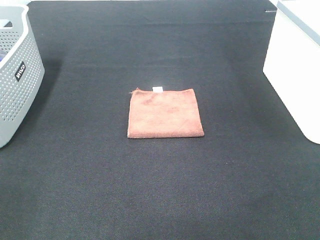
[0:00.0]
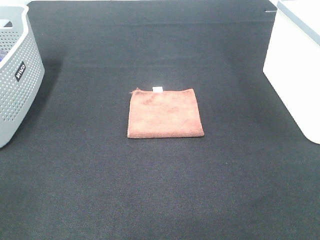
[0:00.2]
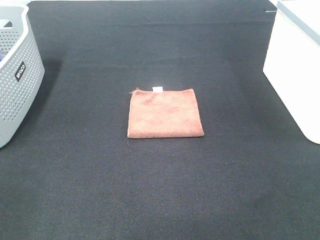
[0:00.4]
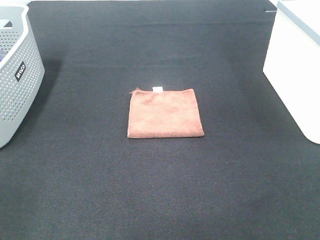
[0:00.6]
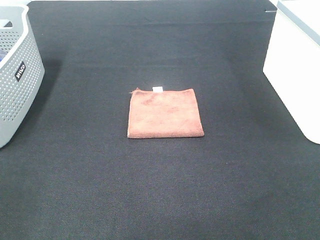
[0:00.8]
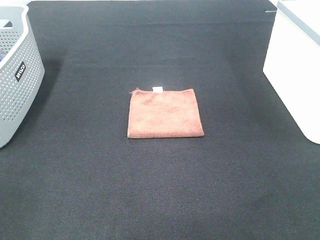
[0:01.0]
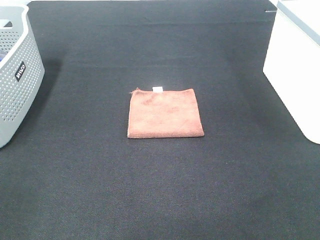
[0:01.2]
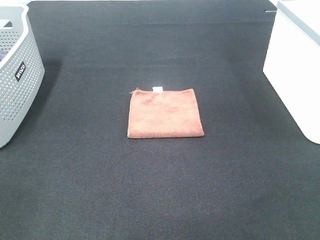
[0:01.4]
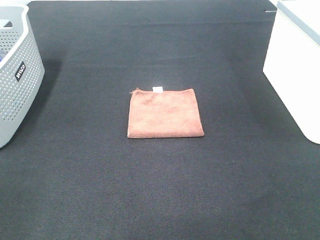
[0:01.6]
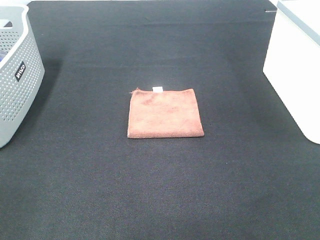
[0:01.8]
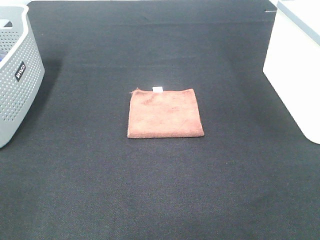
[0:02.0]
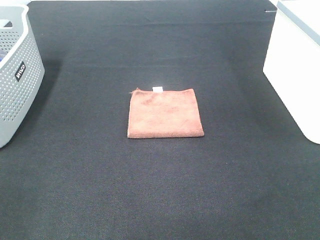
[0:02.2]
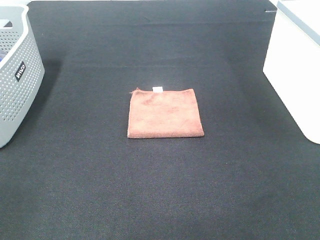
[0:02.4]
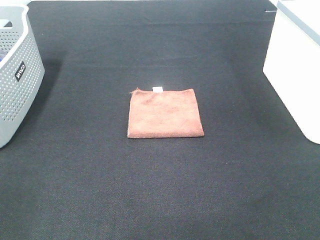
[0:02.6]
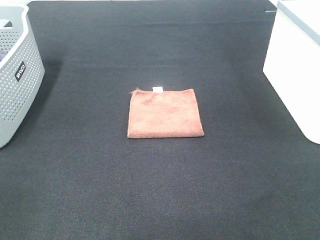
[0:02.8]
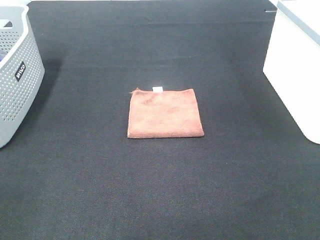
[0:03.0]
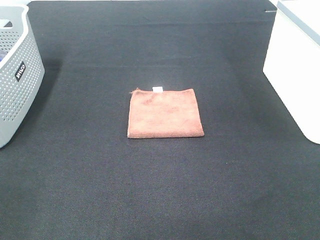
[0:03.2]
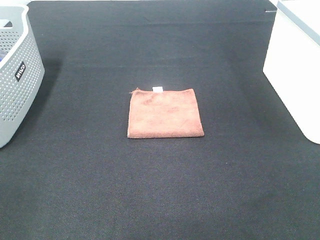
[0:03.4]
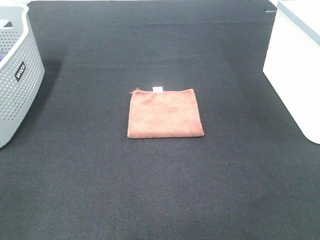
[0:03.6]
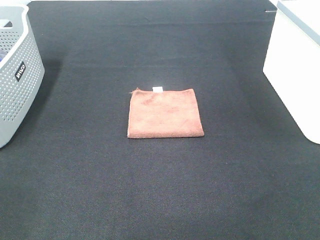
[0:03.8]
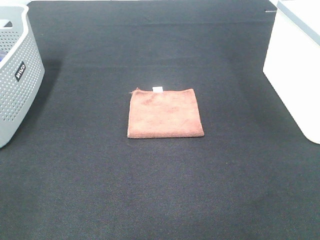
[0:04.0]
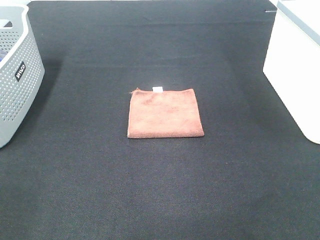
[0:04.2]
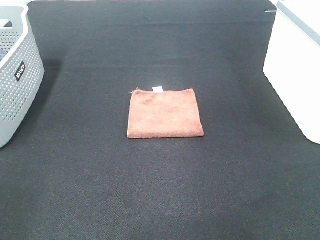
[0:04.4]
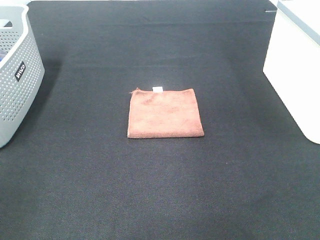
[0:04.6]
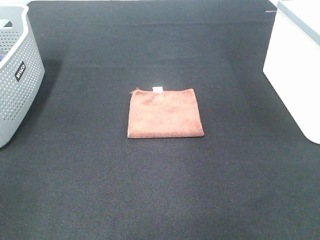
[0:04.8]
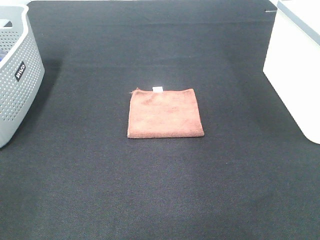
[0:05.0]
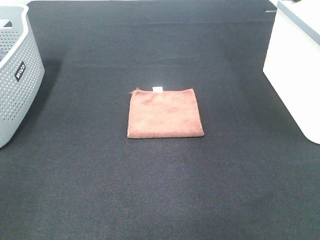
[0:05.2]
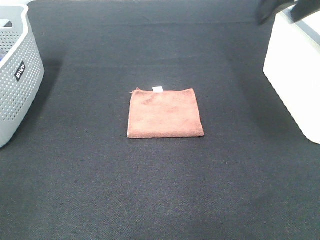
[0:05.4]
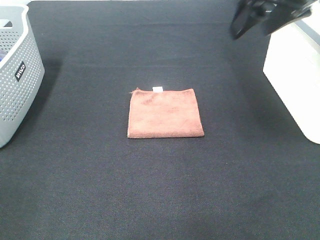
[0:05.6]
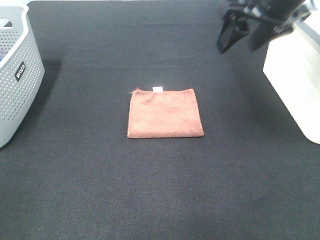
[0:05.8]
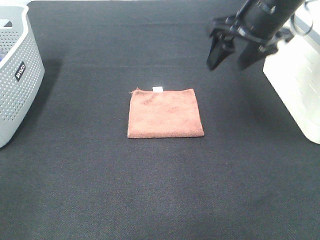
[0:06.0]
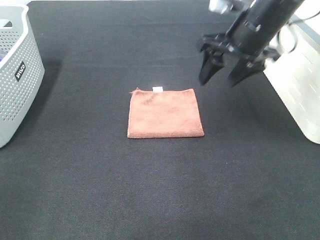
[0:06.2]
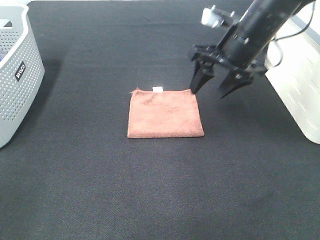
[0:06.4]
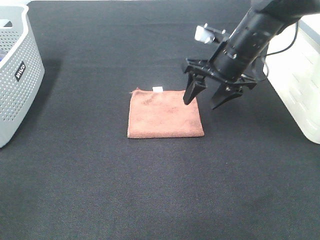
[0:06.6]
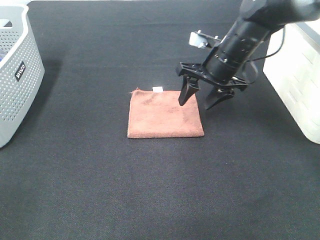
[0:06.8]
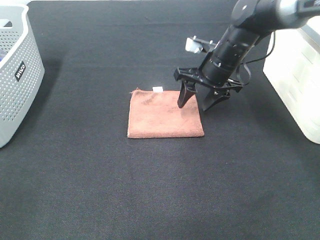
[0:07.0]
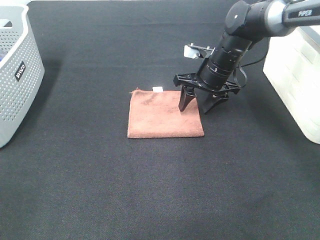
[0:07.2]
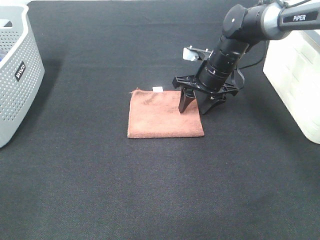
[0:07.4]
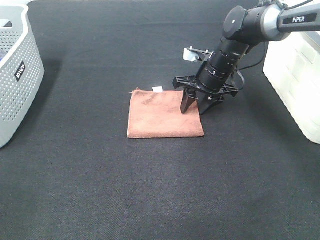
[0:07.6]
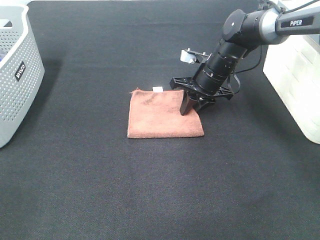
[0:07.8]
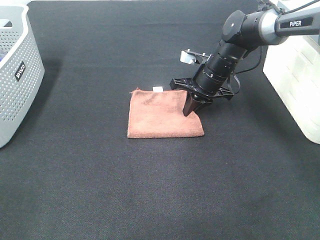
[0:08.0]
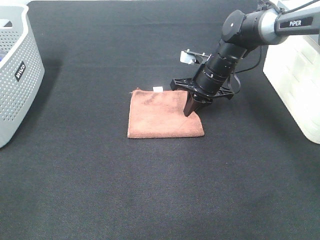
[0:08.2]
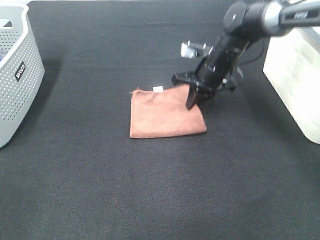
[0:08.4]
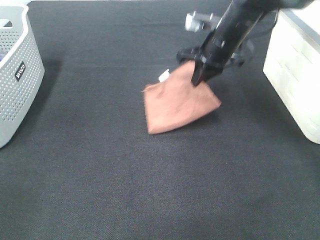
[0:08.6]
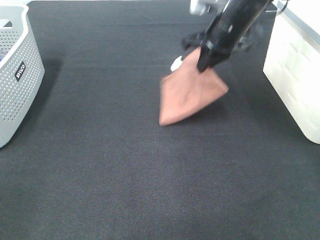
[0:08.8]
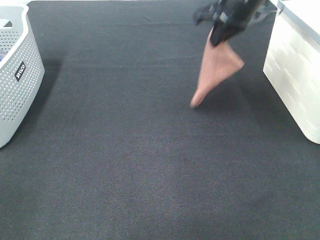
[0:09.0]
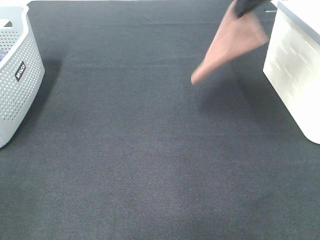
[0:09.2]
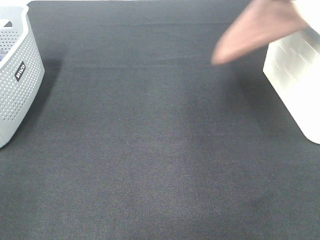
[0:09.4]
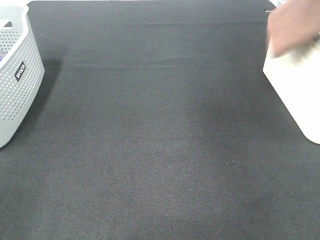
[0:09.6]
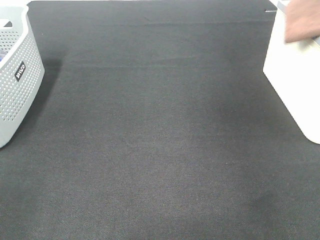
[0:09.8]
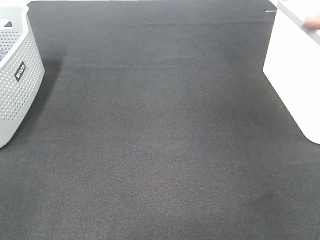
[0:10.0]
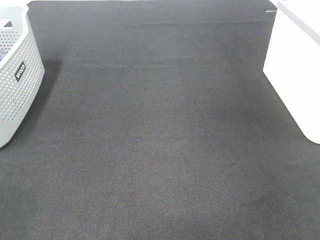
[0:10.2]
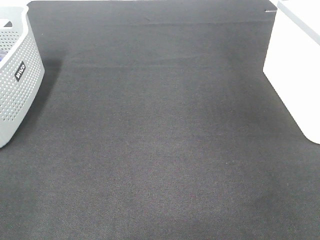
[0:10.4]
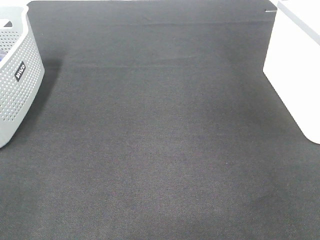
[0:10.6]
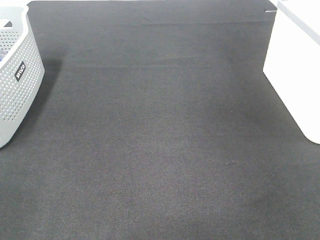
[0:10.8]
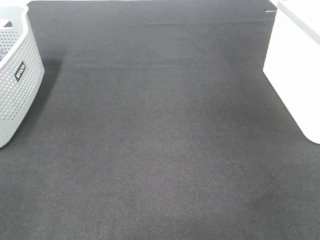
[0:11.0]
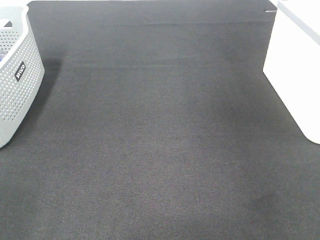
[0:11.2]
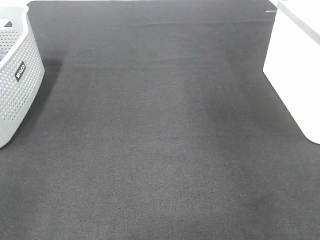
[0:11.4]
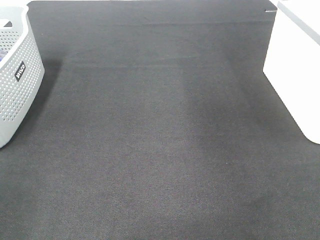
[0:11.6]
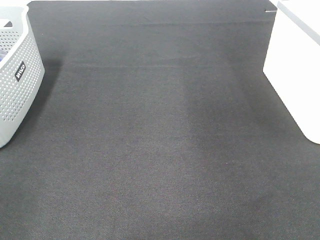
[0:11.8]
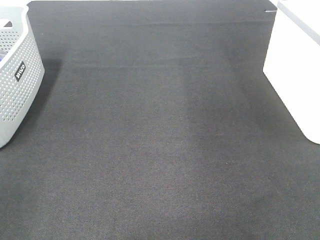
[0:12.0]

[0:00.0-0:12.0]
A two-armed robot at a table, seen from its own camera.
Step, 0:00.0 to 0:08.0: Right hand: grab the folded brown towel.
Step, 0:08.2 to 0:11.0: Right hand: place the brown towel in right basket.
0:00.0 to 0:03.0: Both grippers stay about where they are.
0:04.4 to 0:06.0: The right gripper moves forward, to the left and downward, roughly 25 cm.
0:06.0 to 0:07.6: The right gripper travels downward and forward by approximately 20 cm.
0:07.6 to 0:09.0: The right gripper goes some 20 cm upward, and closes.
0:09.0 to 0:10.4: The right gripper moves to the right, about 25 cm.

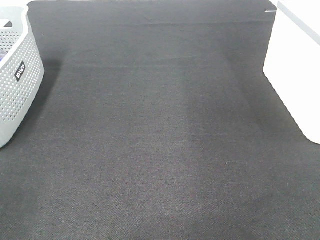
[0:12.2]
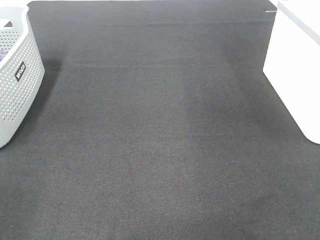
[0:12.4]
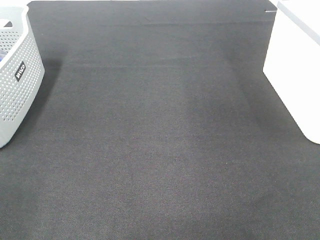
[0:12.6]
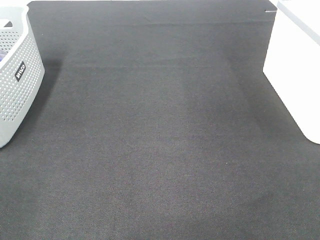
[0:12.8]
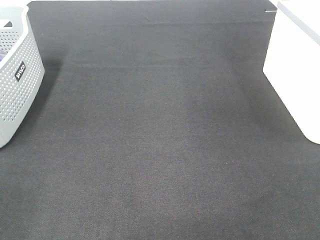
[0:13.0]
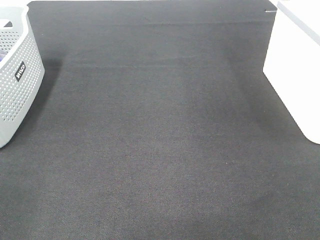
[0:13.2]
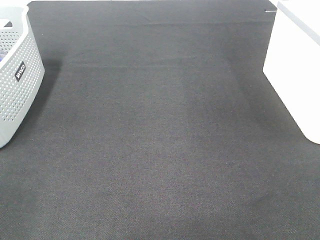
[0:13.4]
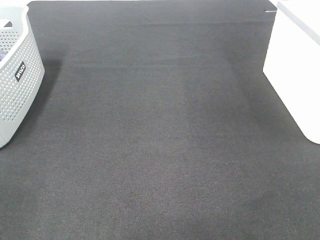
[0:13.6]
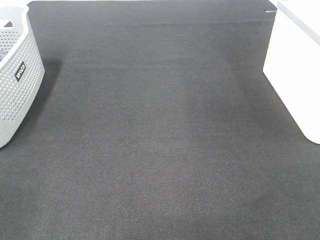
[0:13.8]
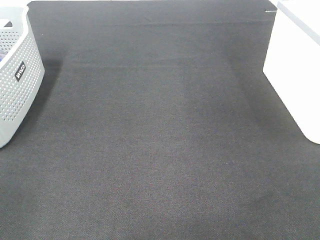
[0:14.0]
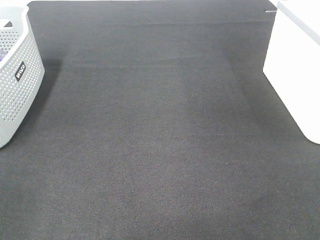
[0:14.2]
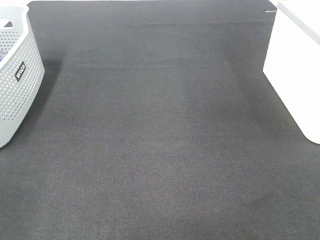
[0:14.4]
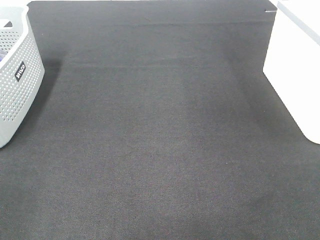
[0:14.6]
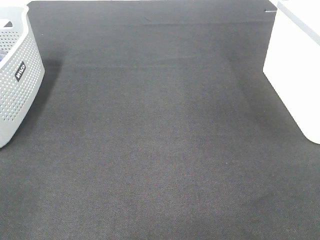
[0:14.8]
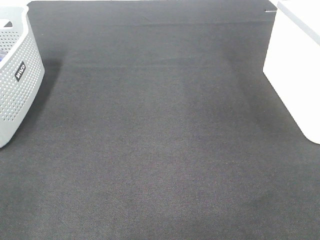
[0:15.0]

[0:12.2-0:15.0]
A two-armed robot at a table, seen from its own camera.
0:13.6 to 0:15.0: Both grippers stay about where they are.
